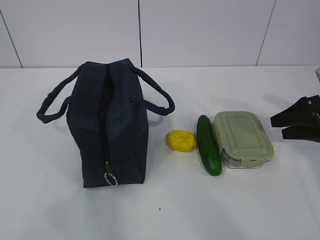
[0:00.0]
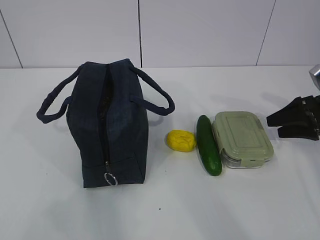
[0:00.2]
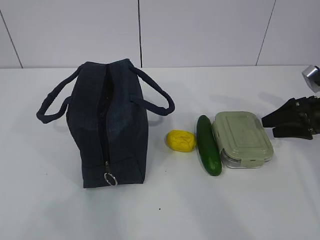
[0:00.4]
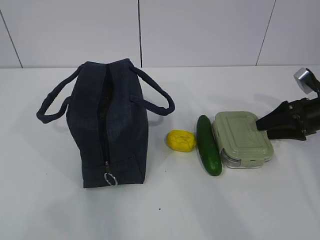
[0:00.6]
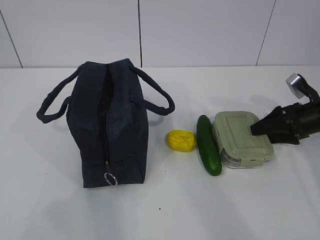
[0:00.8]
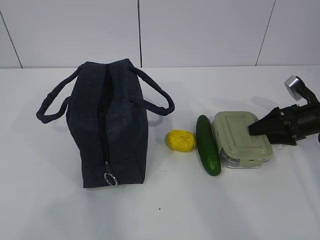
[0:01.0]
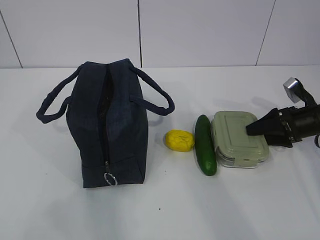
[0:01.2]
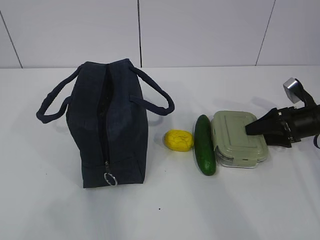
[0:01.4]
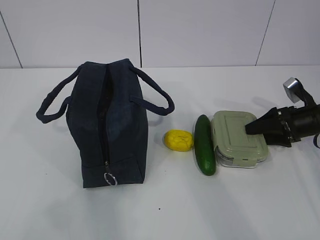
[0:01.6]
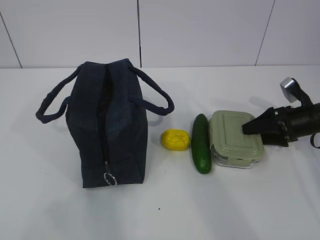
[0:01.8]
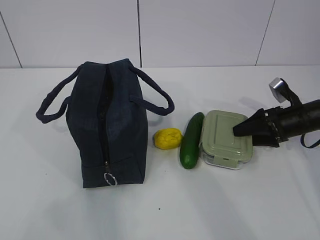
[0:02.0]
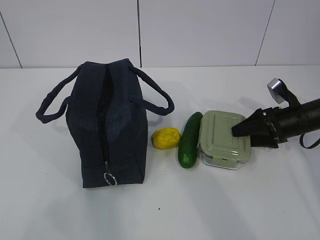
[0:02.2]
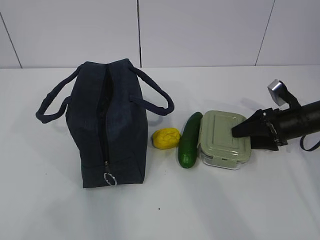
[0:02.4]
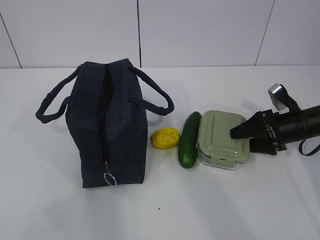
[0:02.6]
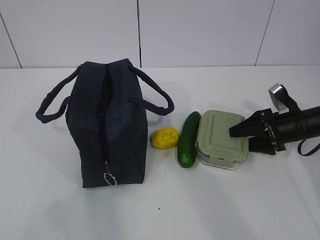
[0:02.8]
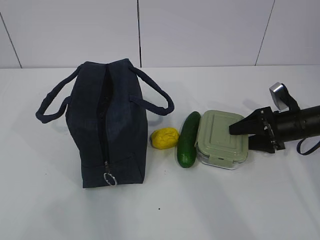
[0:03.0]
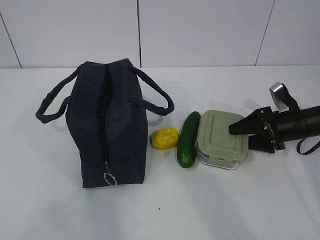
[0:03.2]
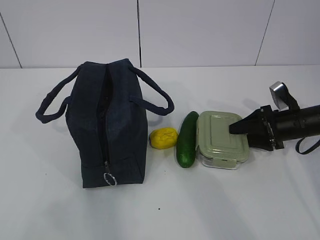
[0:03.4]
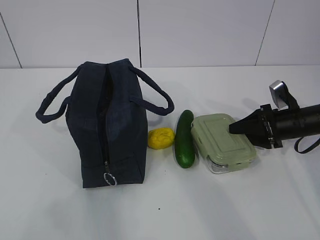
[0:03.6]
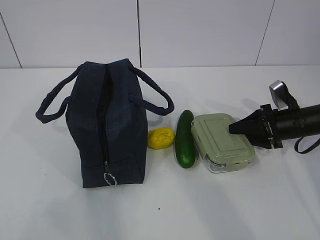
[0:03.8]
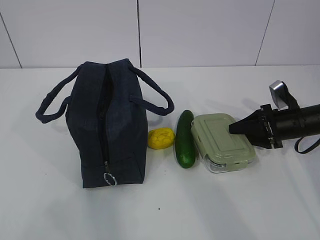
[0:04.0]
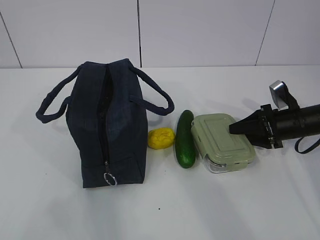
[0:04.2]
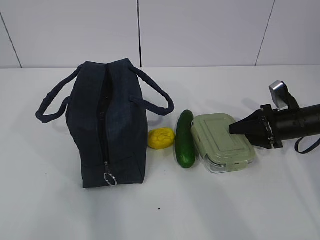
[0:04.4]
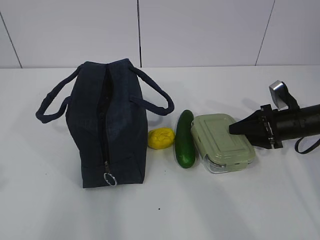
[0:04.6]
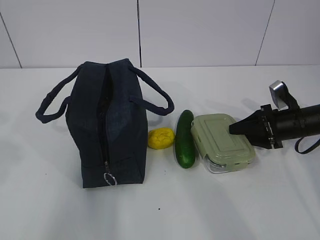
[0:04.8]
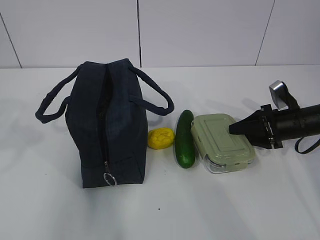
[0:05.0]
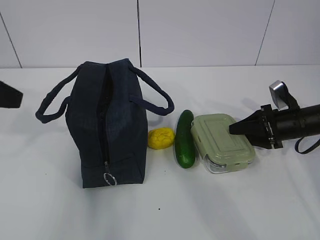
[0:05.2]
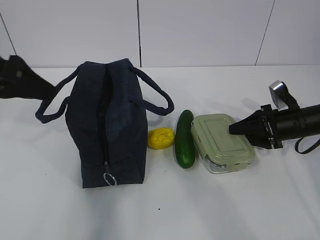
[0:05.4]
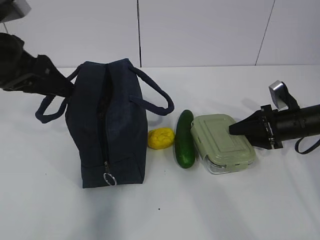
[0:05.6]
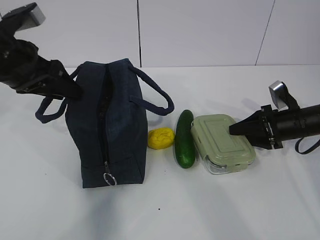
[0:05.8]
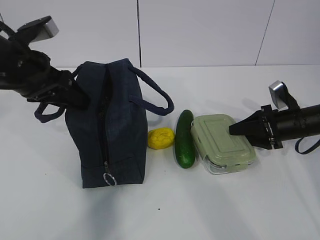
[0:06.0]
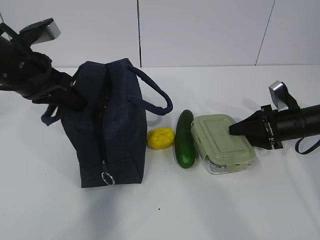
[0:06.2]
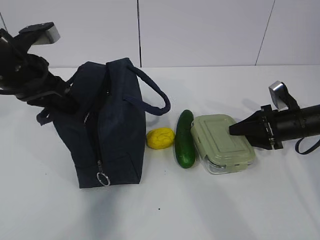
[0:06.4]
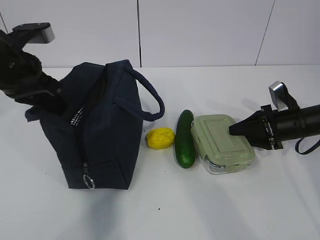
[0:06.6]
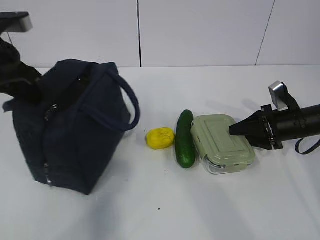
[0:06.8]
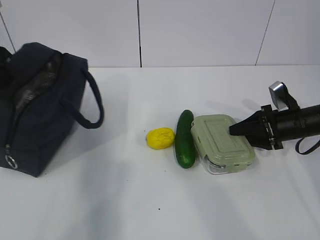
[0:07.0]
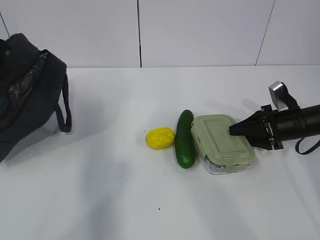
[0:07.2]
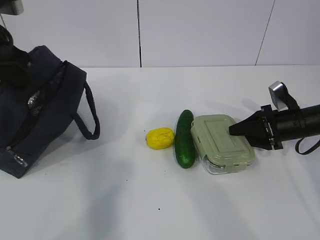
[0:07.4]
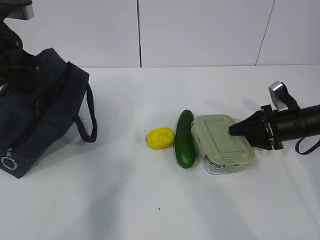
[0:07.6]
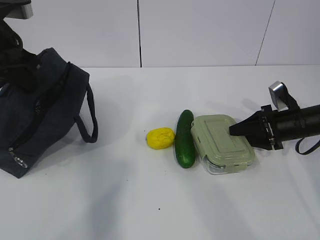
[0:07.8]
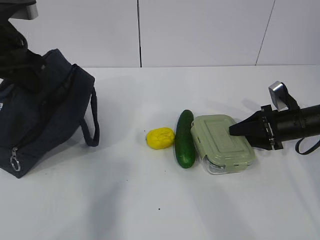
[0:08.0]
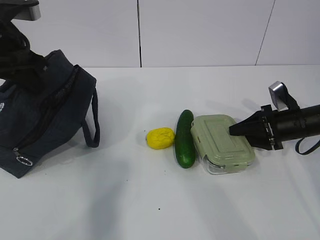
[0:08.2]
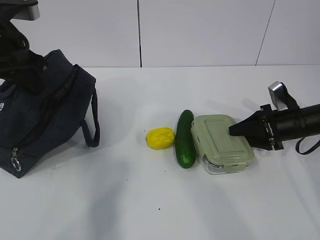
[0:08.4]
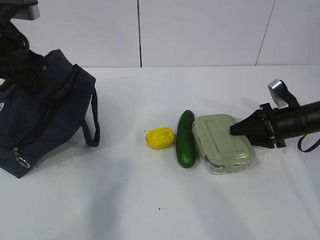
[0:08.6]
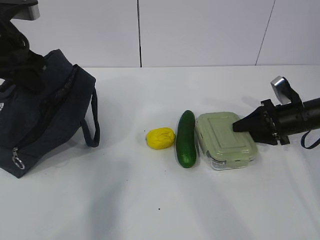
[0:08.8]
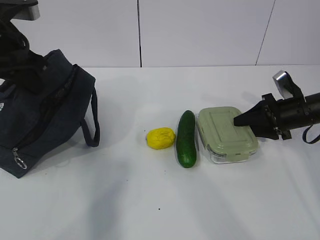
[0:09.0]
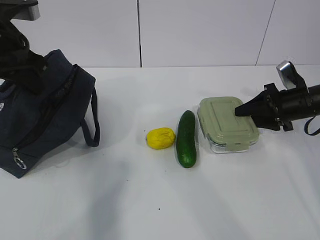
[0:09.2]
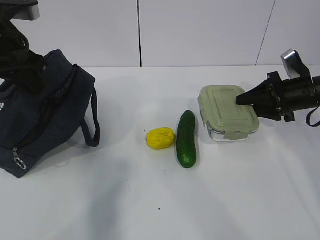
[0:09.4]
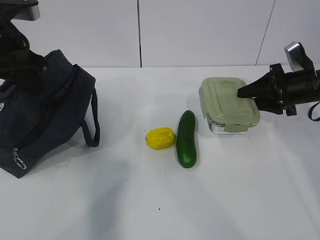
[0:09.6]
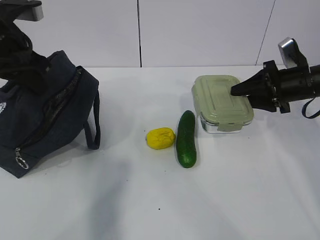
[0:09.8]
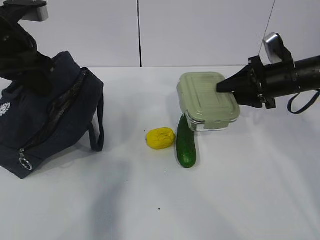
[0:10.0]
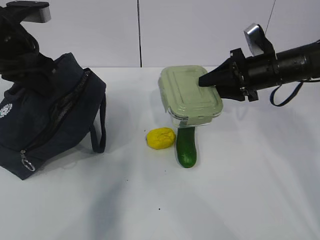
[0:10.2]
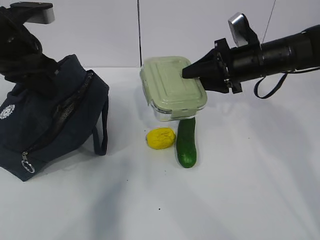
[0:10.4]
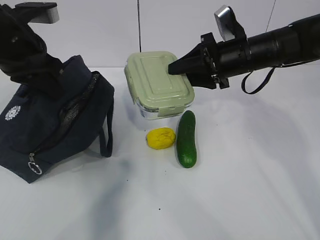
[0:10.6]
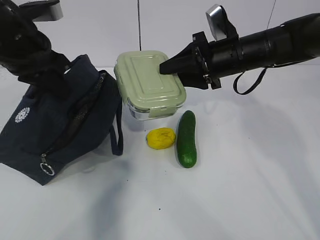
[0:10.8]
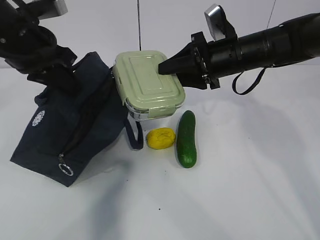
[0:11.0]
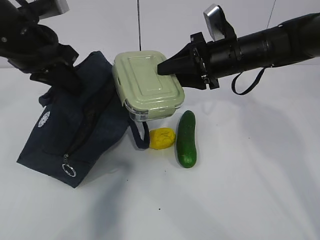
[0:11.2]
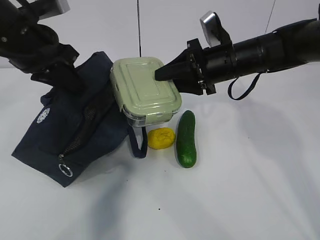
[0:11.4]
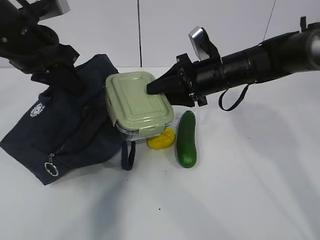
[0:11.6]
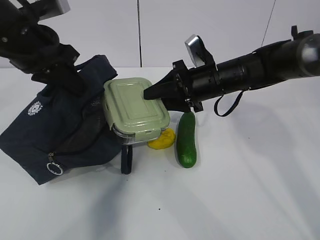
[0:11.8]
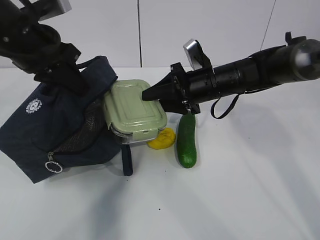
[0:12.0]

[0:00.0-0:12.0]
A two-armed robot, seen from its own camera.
Step, 0:00.0 to 0:03.8: Grasp the box with the right gripper.
Step, 0:04.2 to 0:06.2: Grasp the package with the left gripper.
0:00.0 to 0:01.6: The right gripper travels downward by approximately 5 cm.
0:01.6 to 0:03.0: The grippers move only a little.
0:03.0 to 0:04.4: The right gripper closes up.
0:04.4 to 0:06.0: The left gripper goes roughly 30 cm forward, and opens its fingers.
0:06.0 to 0:07.6: The left gripper closes its fingers.
0:07.6 to 0:09.0: There are only small adjustments of the grippers.
0:09.0 to 0:10.4: The right gripper moves to the left and upward, about 15 cm.
0:10.4 to 0:12.0: The right gripper goes about 5 cm to the left.

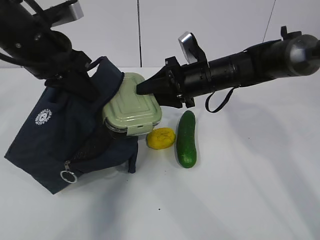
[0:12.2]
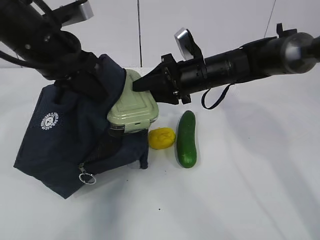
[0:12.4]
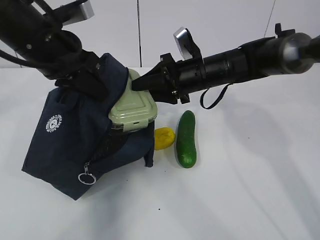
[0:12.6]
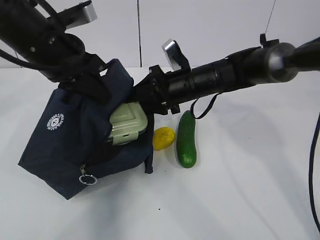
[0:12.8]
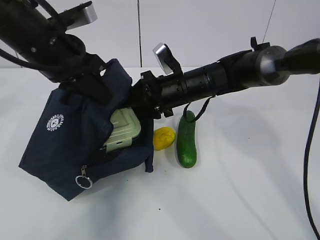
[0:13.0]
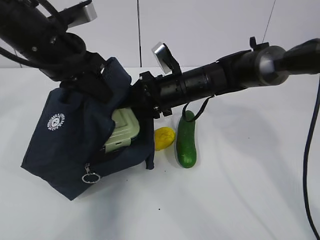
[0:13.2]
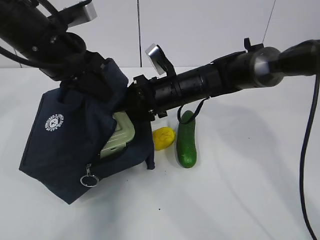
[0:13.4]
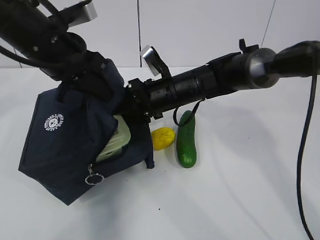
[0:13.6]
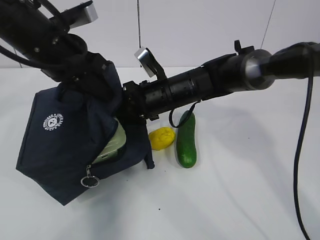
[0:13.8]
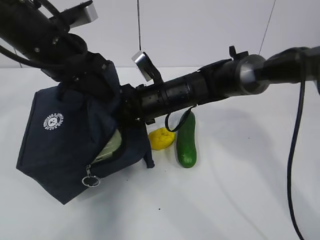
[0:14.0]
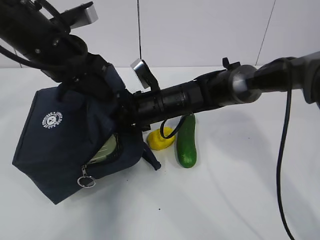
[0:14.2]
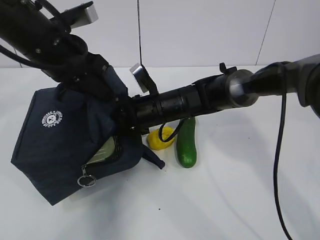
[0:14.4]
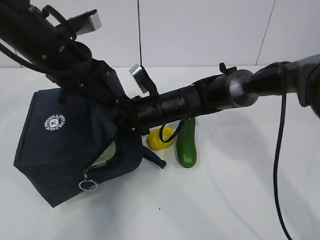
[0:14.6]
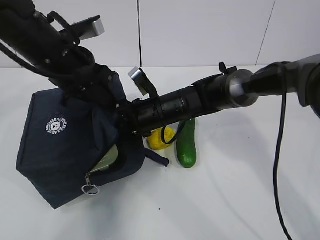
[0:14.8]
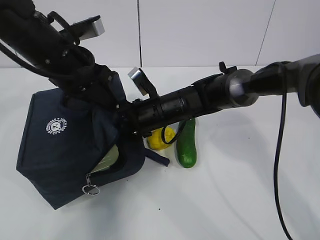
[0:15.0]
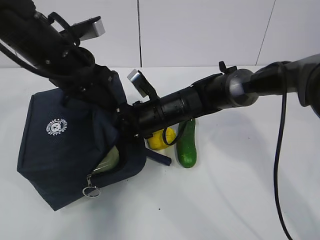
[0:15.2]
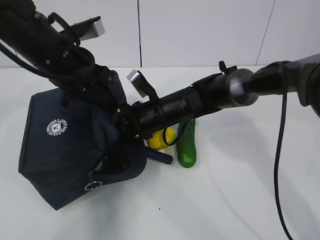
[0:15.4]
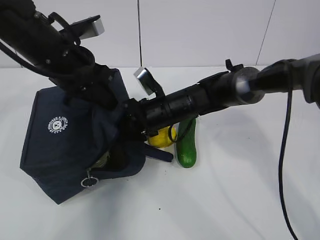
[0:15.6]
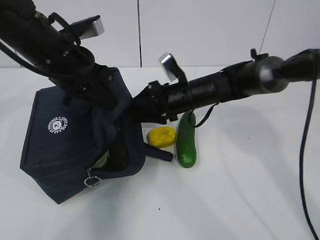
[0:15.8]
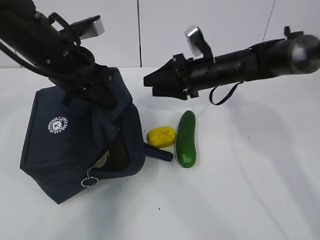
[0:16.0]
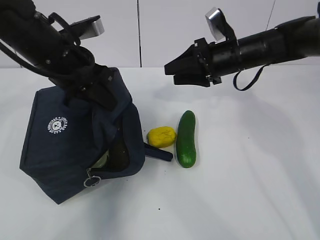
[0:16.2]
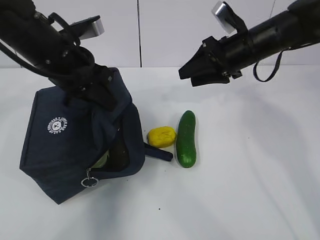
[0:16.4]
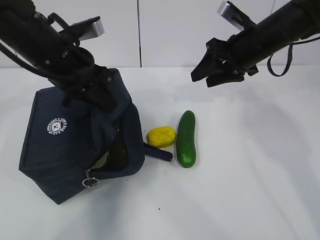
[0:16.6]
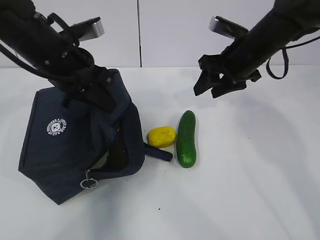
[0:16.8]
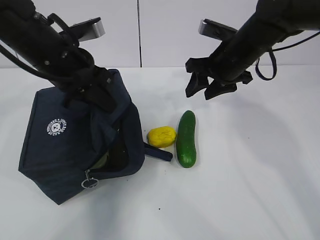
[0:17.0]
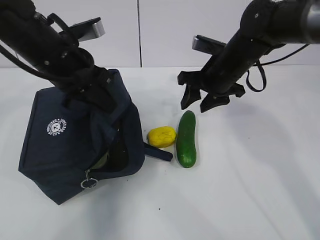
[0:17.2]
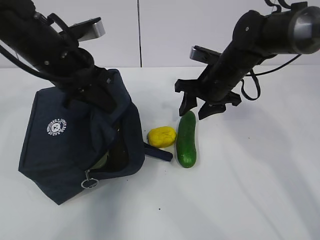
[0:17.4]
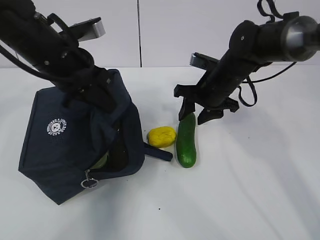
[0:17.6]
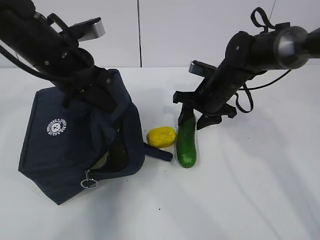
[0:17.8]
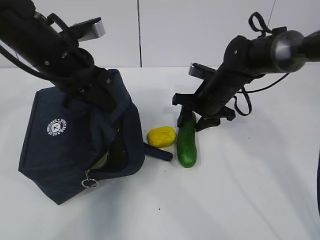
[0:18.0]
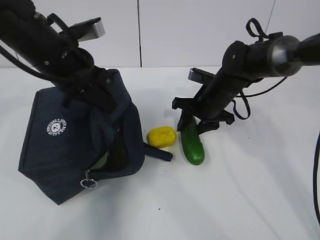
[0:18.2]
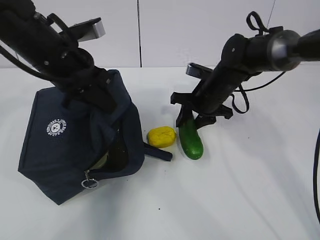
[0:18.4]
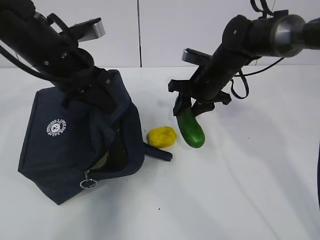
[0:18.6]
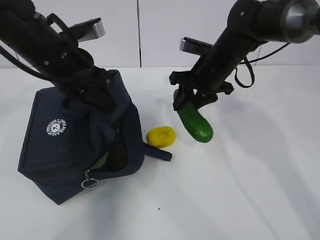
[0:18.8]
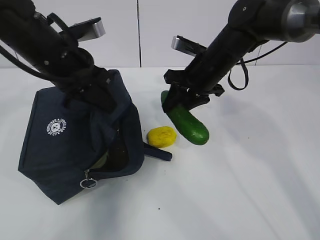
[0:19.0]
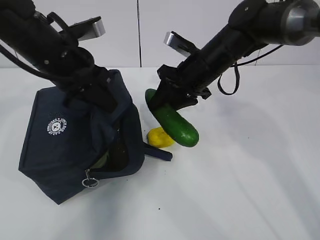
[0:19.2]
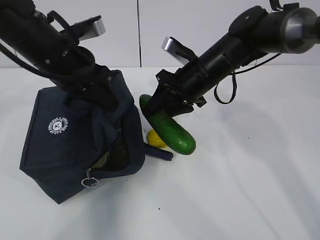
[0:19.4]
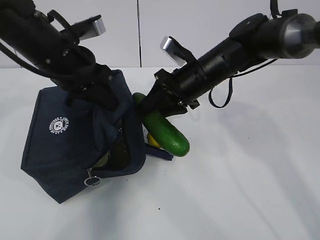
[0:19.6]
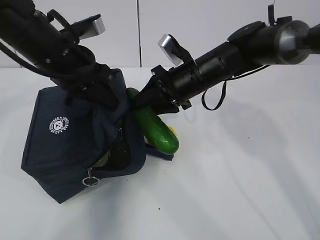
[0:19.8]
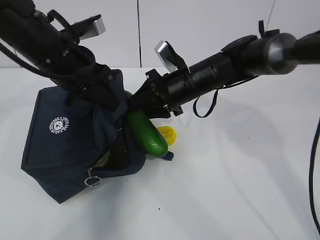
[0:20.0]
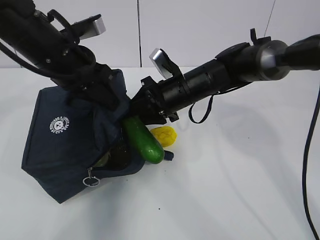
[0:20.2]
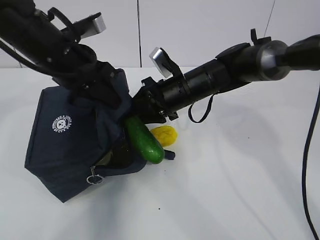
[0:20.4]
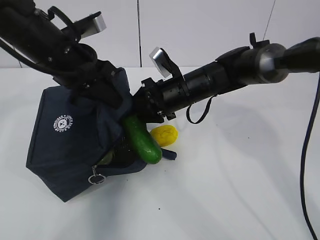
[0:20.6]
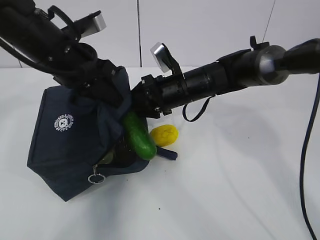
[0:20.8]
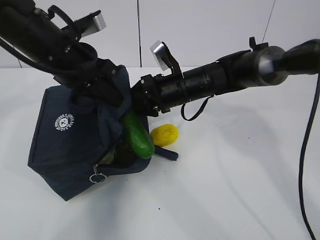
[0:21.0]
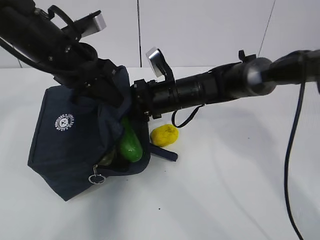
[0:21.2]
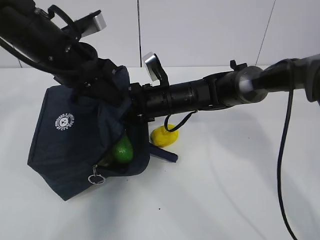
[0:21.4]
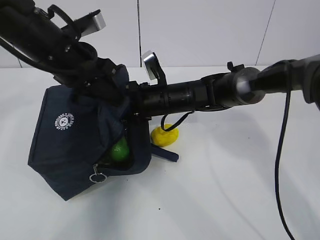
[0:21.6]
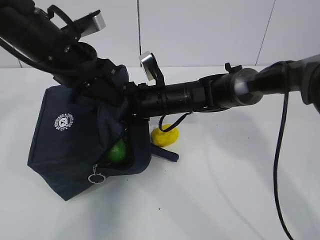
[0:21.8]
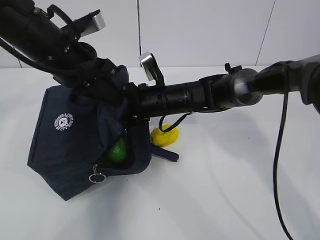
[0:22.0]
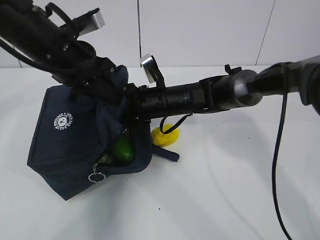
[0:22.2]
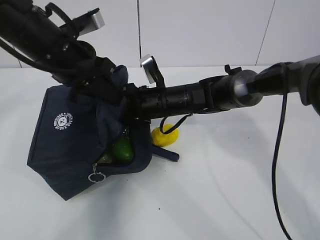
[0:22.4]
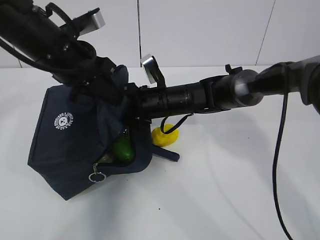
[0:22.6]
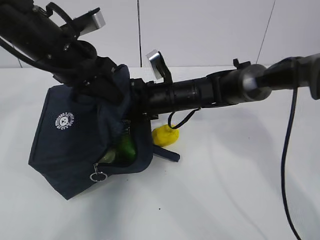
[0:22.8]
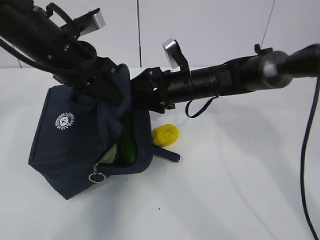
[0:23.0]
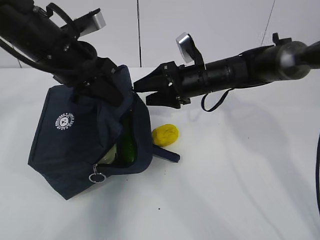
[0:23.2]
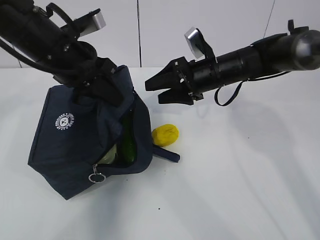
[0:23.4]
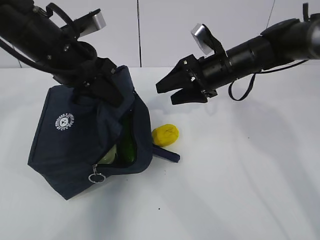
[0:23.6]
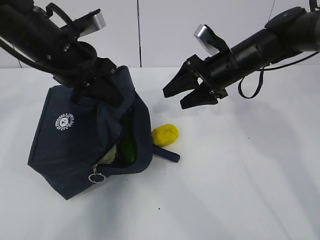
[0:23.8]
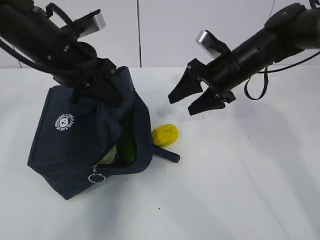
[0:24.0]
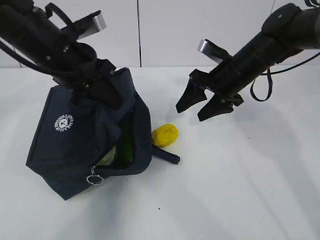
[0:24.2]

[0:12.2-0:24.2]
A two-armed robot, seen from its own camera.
Step, 0:12.2 to 0:15.8: Place the box into the package with the right gripper.
Step, 0:16.2 to 0:18.2: Grasp the cucumber with the right gripper.
Step, 0:18.4 to 0:22.8: Place the cucumber into the package with the right gripper.
0:12.2 to 0:13.8: The right gripper is displaced to the left by roughly 5 cm.
0:15.2 to 0:16.6: The right gripper shifts approximately 20 cm to the right and upward.
0:16.6 to 0:18.2: The right gripper is displaced downward and to the left by some 15 cm.
0:18.2 to 0:19.8: The right gripper is displaced upward by about 5 cm.
0:19.8 to 0:21.2: The right gripper moves some 5 cm.
0:21.2 to 0:22.6: The right gripper opens its fingers.
0:22.6 to 0:24.2: The right gripper travels to the right and upward by about 15 cm.
